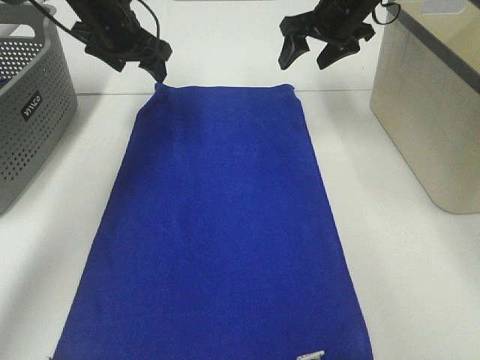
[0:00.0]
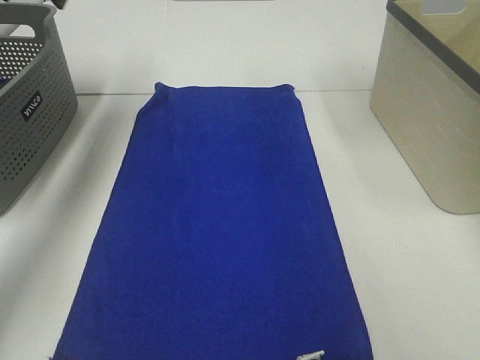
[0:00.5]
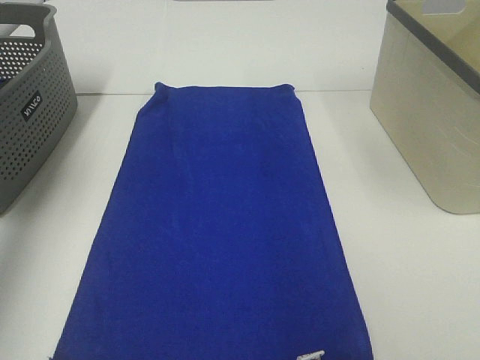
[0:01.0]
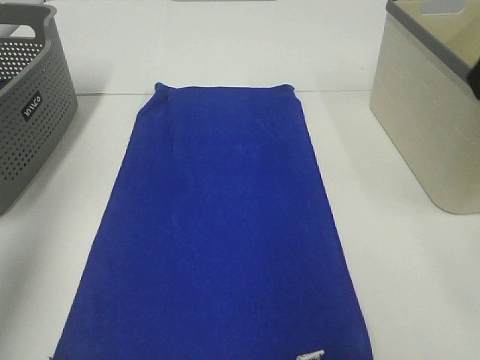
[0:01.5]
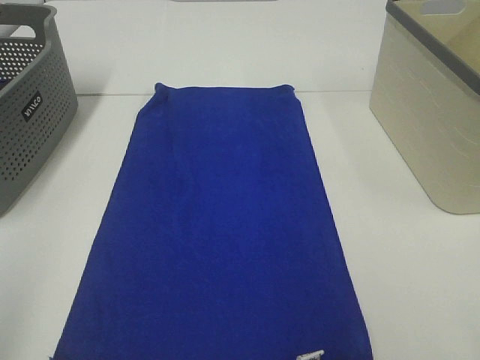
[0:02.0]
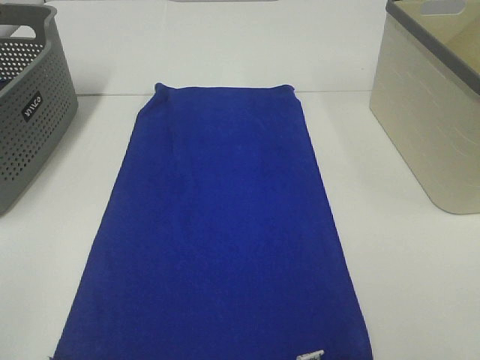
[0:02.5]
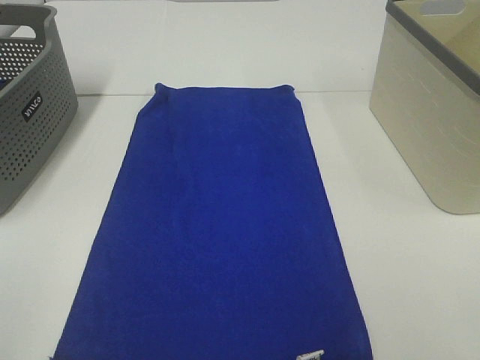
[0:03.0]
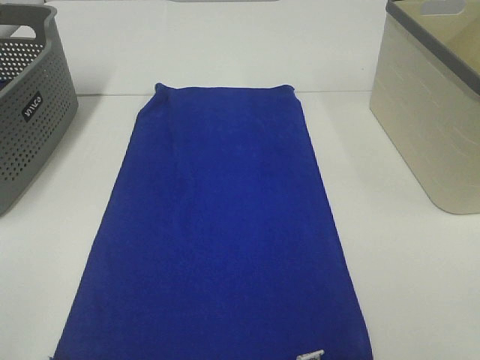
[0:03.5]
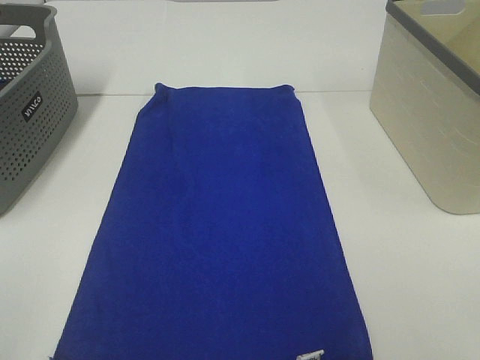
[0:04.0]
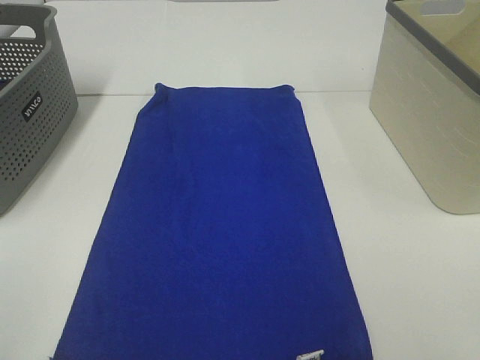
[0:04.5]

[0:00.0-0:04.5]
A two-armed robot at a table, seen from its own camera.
Task of the whole recording: Remove the towel and place it.
0:00.0 to 0:02.0: The two grippers go approximately 50 cm backward.

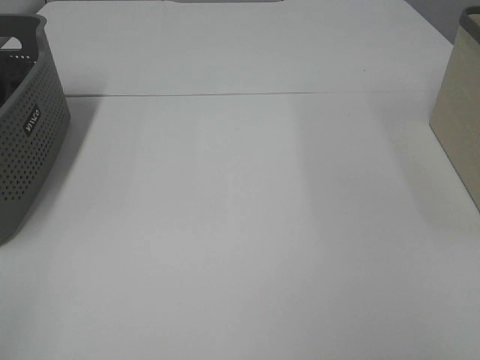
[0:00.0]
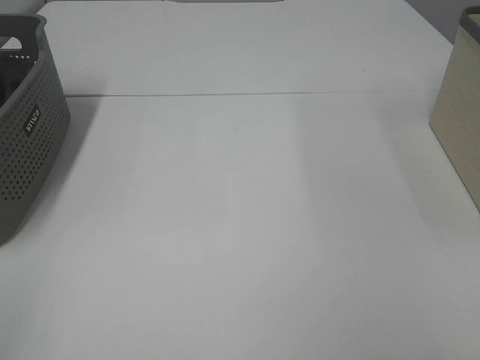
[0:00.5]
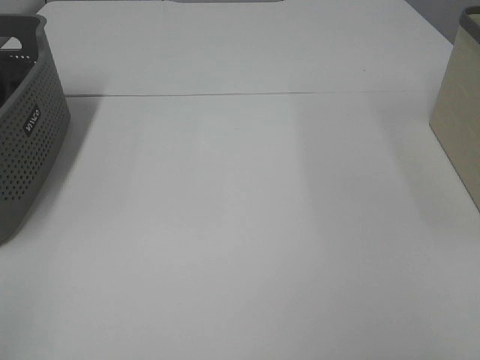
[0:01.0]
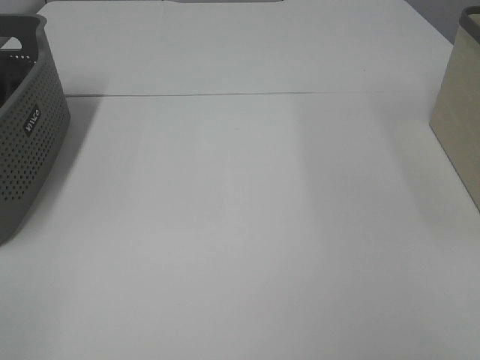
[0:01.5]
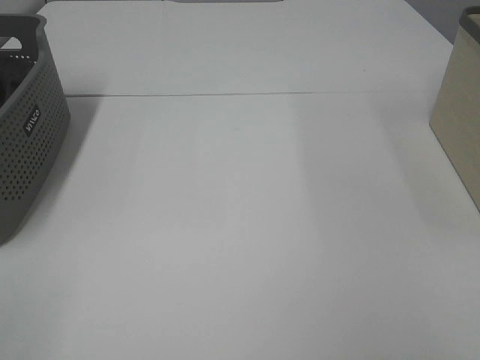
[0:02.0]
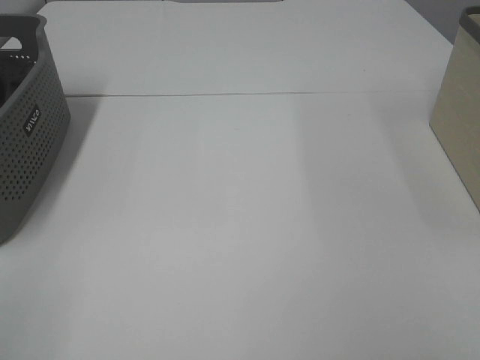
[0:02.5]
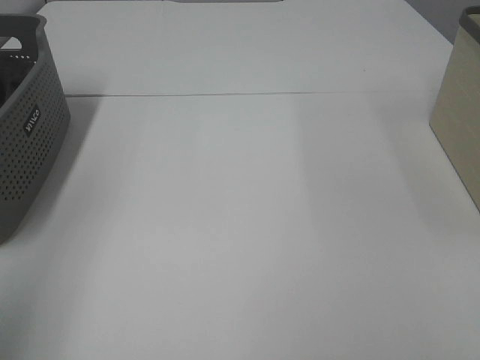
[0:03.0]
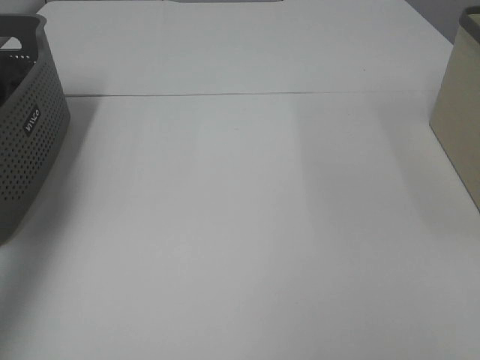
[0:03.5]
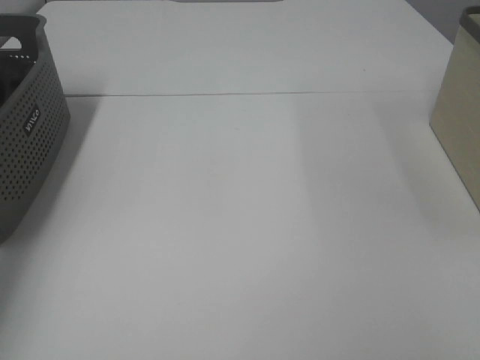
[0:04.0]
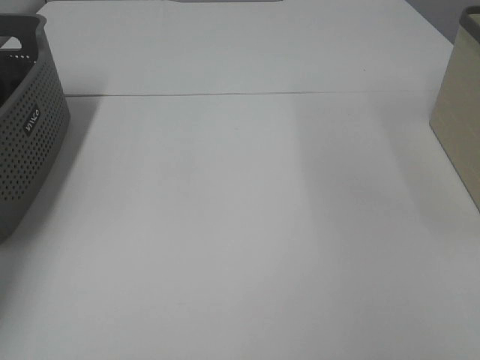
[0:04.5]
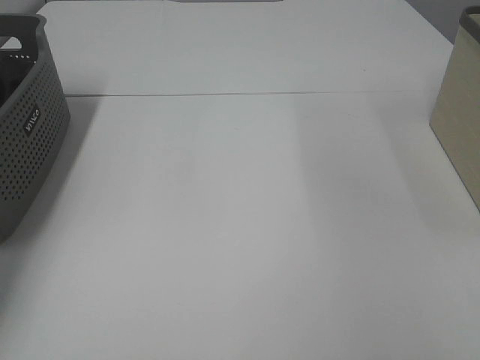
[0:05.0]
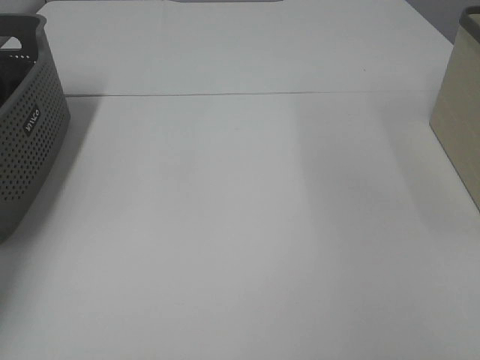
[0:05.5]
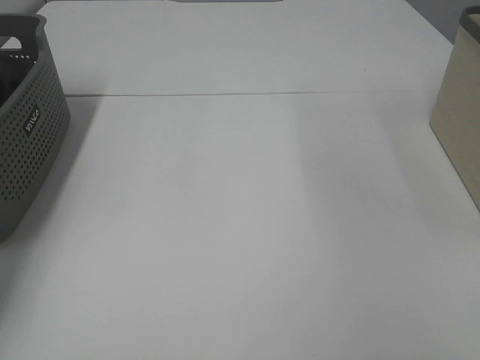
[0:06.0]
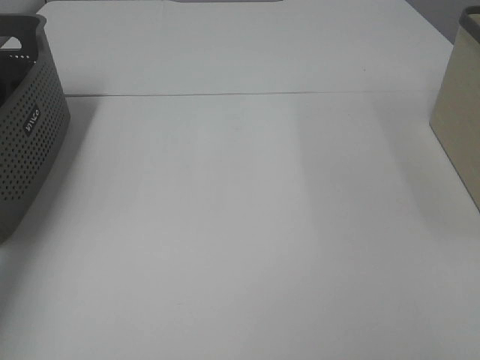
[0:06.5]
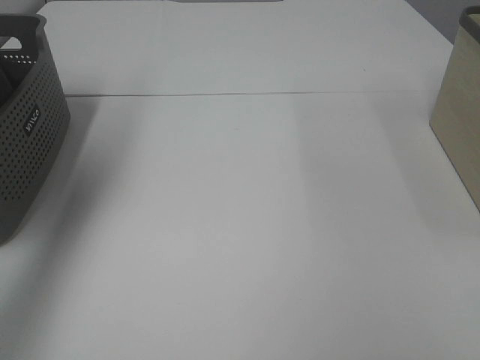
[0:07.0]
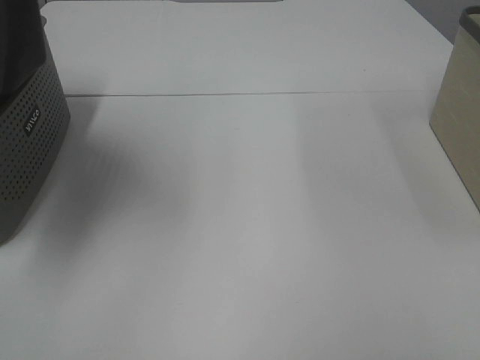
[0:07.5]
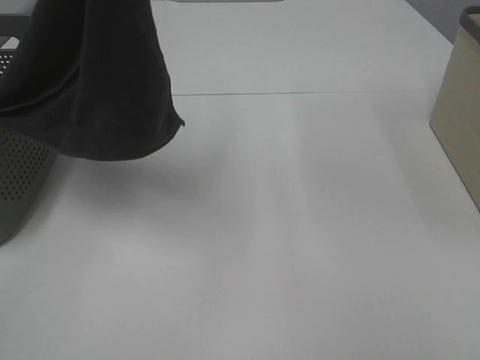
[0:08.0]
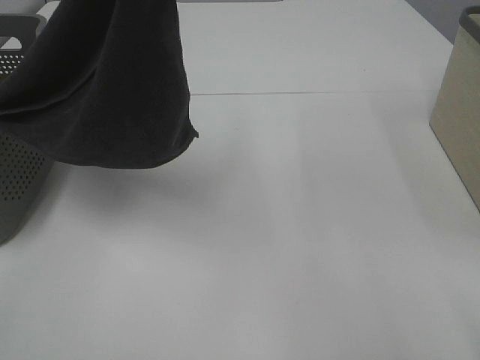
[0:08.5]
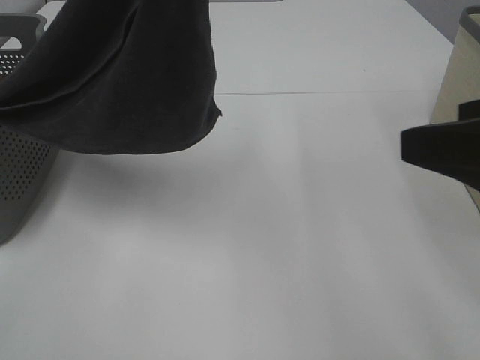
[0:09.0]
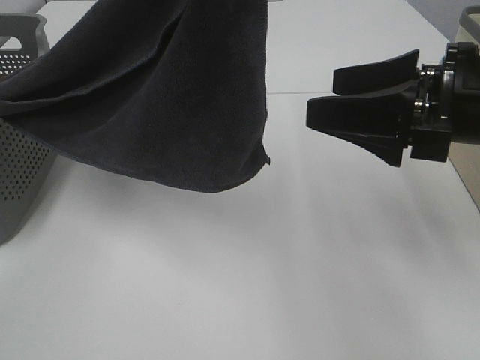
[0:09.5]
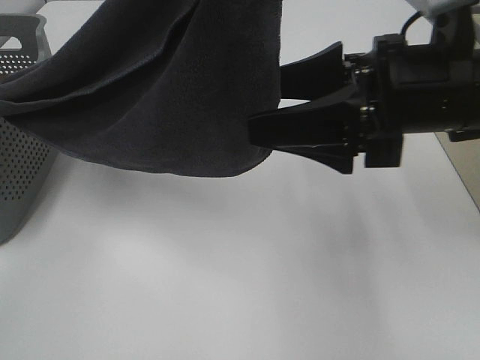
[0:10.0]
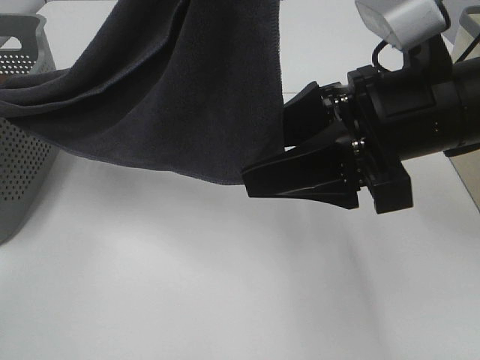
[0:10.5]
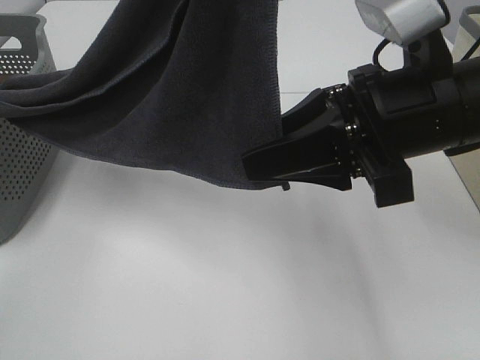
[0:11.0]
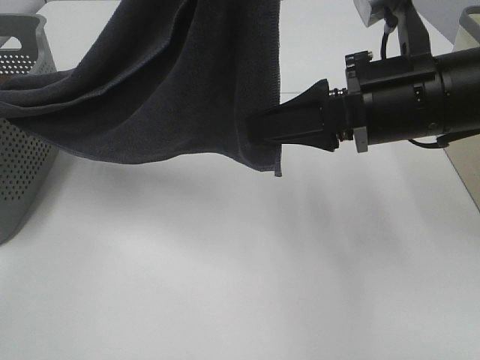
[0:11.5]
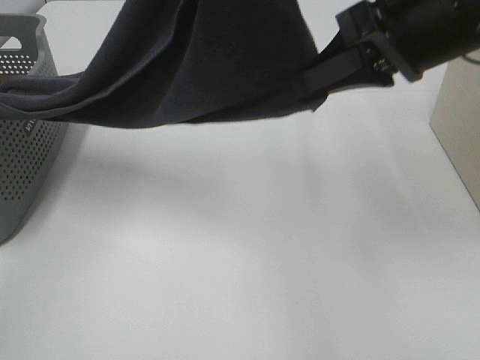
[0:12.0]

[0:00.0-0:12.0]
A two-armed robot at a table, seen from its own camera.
Task of the whole recording: Remove the towel and place it.
Step, 0:08.0 to 0:11.0: Right hand: grab a corner of the grey towel and straighten it.
0:00.0 to 0:02.0: The two grippers keep their place.
0:02.0 to 0:04.0: The left gripper shifts about 40 cm forward.
0:06.0 to 0:08.0: The left gripper heads upward, to the right and backward, covering approximately 50 cm.
0:08.0 to 0:10.0: The left gripper ends up roughly 5 cm from where it was. Meanwhile the right gripper heads forward and to the left, covering about 30 cm.
0:10.0 to 0:12.0: The right gripper heads upward, covering approximately 10 cm, and closes.

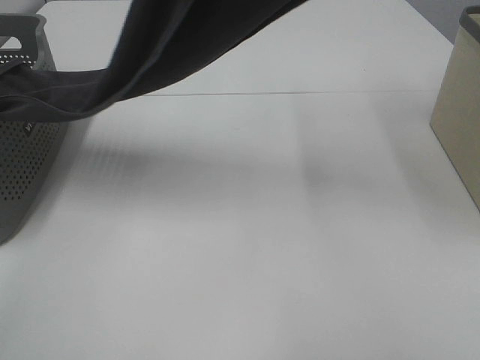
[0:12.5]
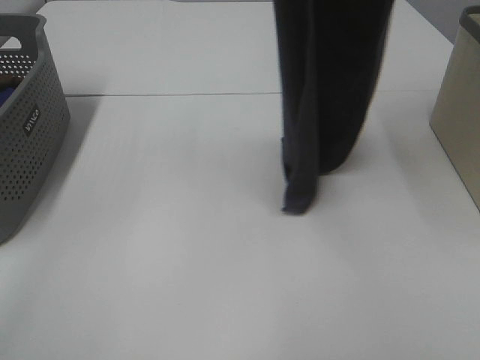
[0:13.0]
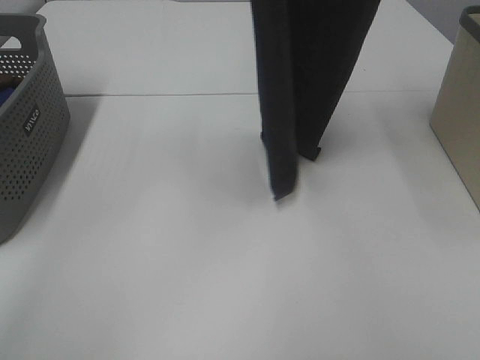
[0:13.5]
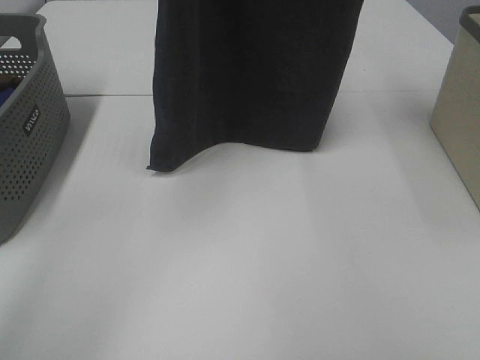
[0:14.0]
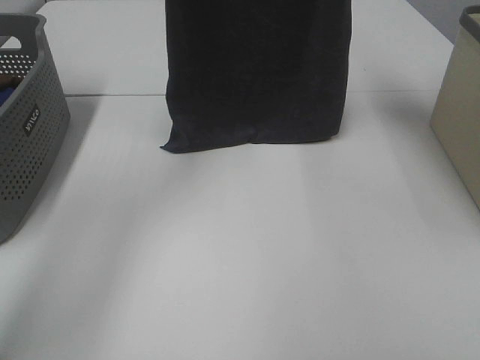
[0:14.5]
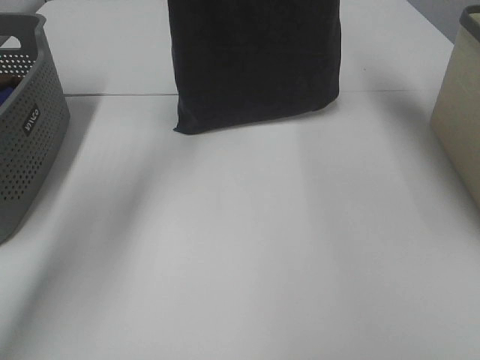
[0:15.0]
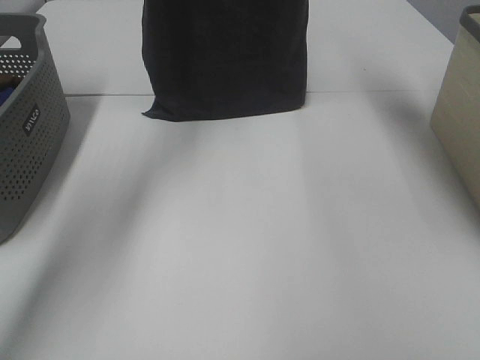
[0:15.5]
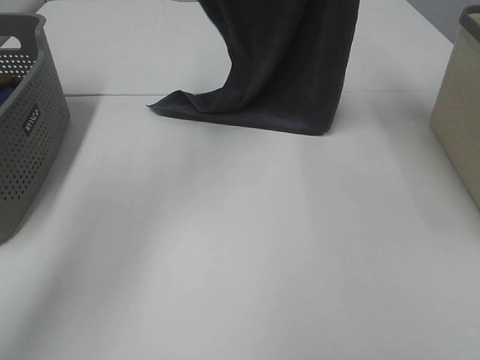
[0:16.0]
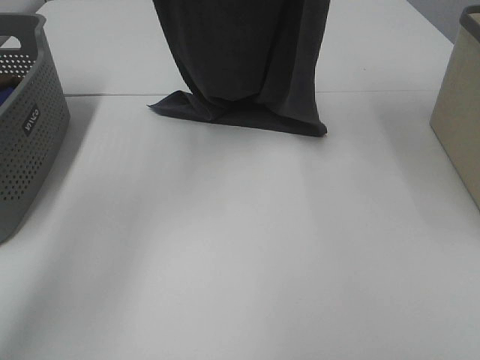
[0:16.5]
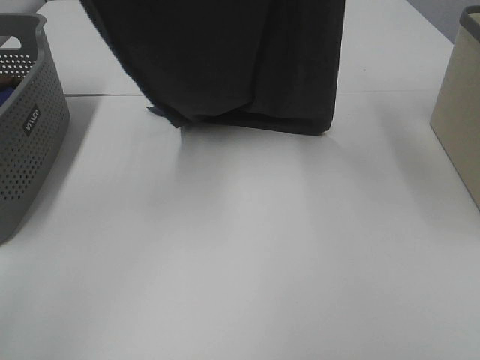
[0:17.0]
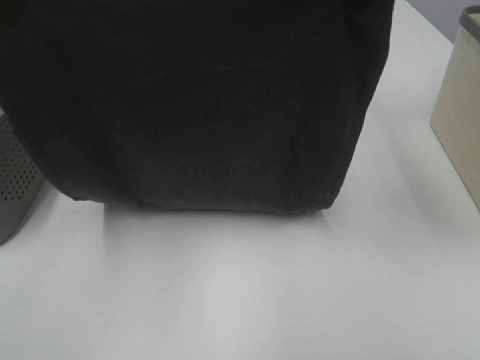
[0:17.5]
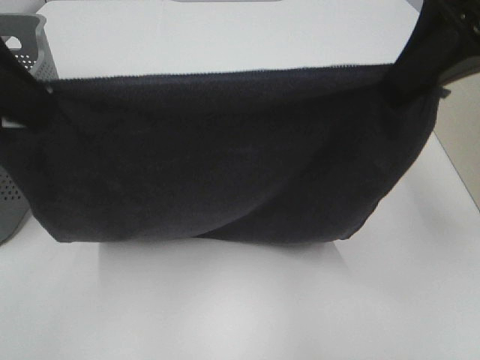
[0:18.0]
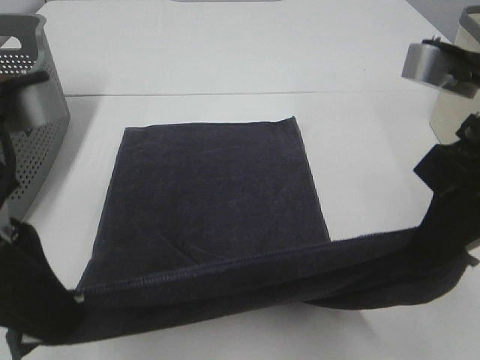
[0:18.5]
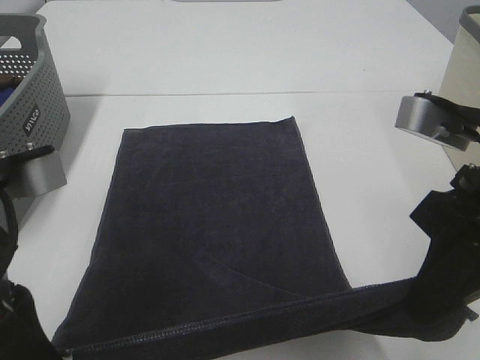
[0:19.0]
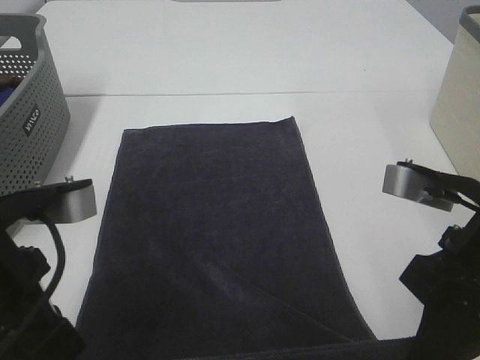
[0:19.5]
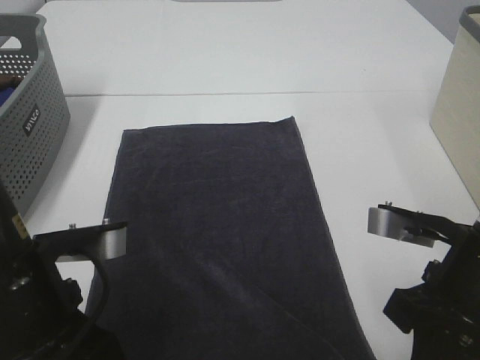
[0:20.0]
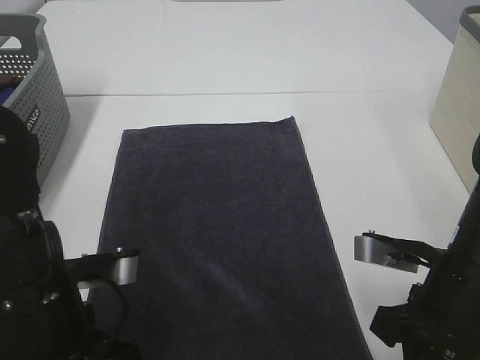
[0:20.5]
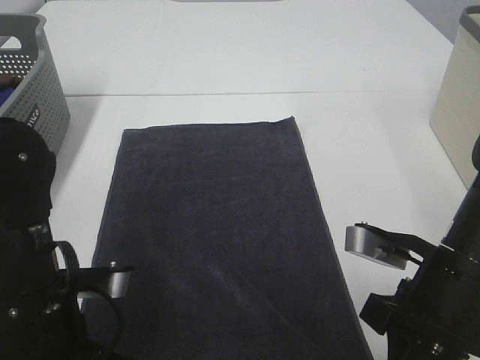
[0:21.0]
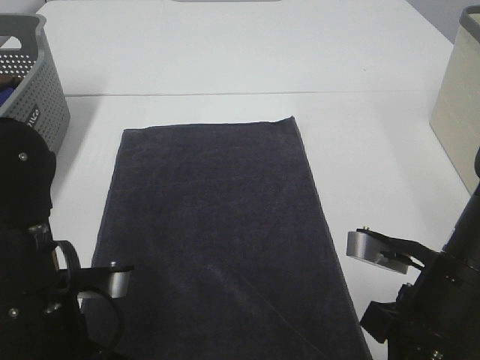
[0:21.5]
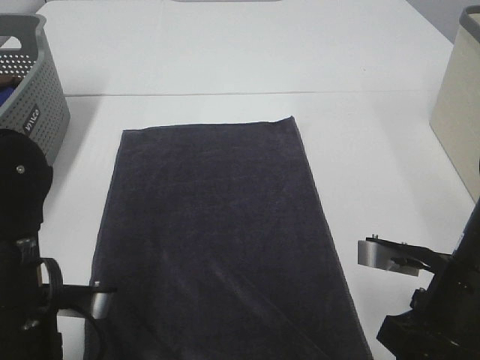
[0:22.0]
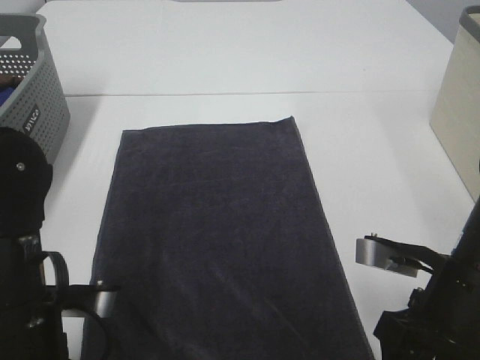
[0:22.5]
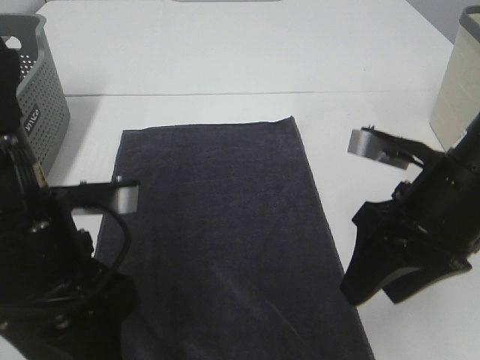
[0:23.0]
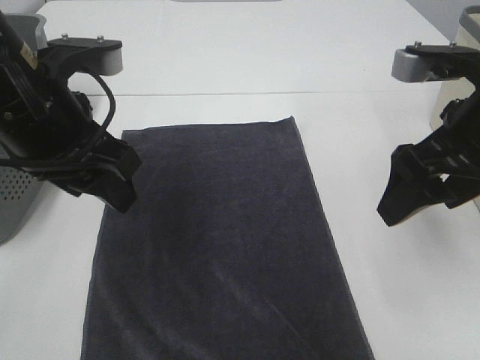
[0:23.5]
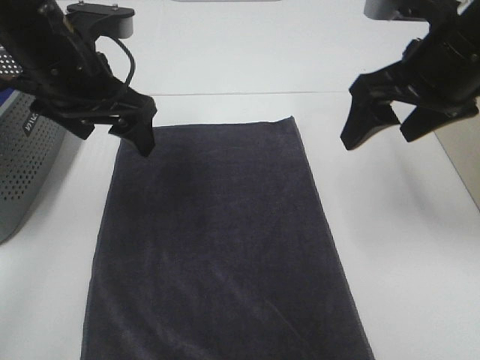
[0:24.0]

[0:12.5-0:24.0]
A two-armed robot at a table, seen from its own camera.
Task of the whole recording: Remove the towel and place it.
Step, 0:12.5 to 0:18.0: Left hand: spread the grey towel flat on the table.
Step, 0:12.5 to 0:18.0: Right hand: spread the grey towel flat on the table.
0:12.5 to 0:14.5: The two grippers go approximately 15 cm forward.
0:14.5 to 0:16.5: The left gripper reaches approximately 5 cm forward, then returns.
0:16.5 to 0:18.5: The two grippers go some 30 cm backward and downward.
0:18.5 to 0:20.0: Both grippers travel together downward, roughly 10 cm.
0:20.0 to 0:22.0: The left gripper opens its fingers. The right gripper opens up.
0:22.0 to 0:24.0: The right gripper goes about 20 cm upward and forward, and opens, while the left gripper goes about 25 cm forward and upward, and opens.
